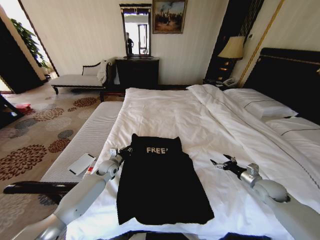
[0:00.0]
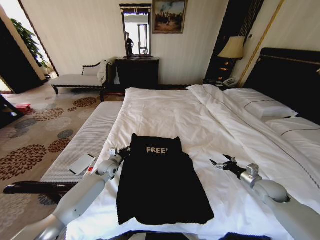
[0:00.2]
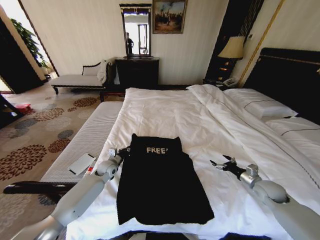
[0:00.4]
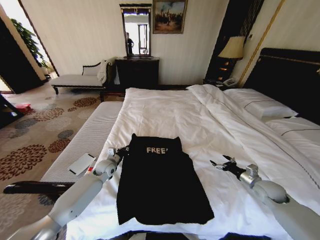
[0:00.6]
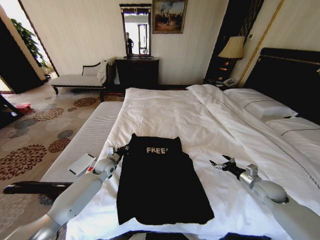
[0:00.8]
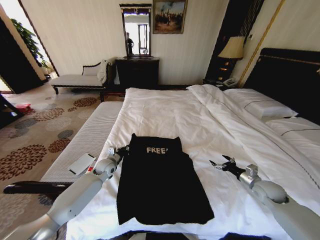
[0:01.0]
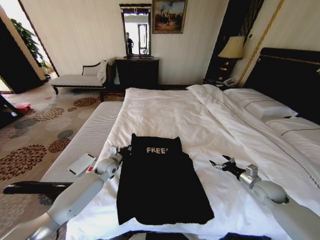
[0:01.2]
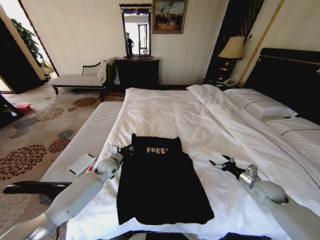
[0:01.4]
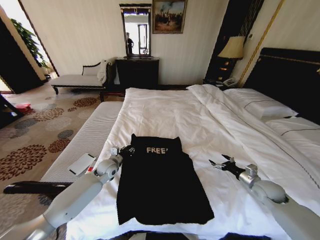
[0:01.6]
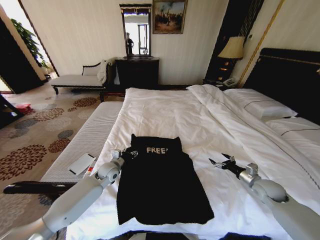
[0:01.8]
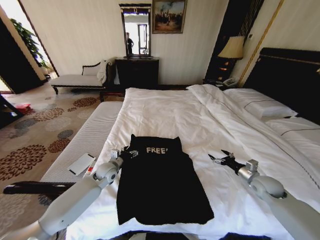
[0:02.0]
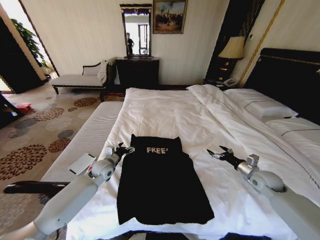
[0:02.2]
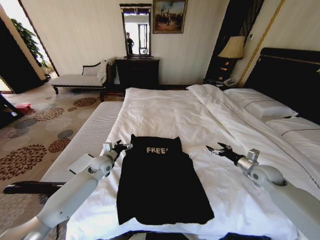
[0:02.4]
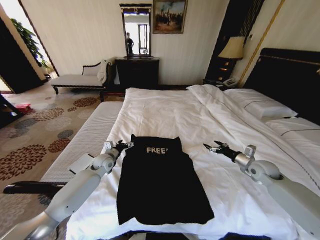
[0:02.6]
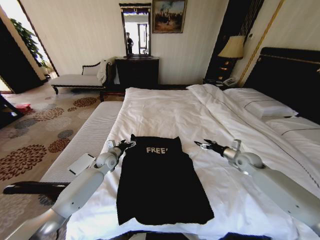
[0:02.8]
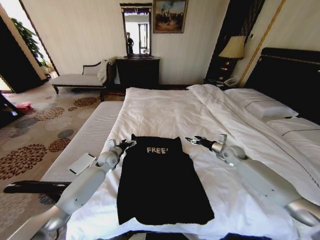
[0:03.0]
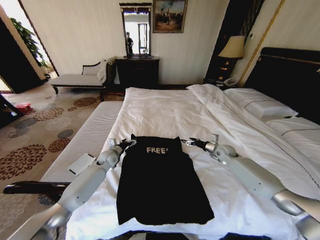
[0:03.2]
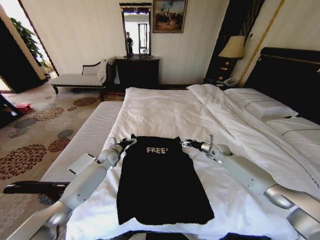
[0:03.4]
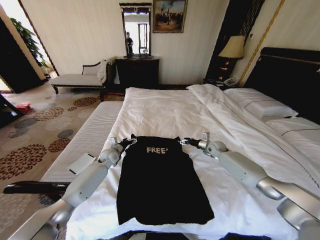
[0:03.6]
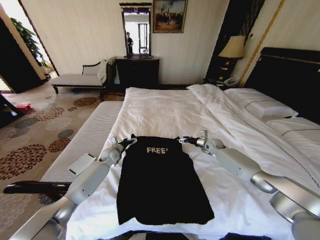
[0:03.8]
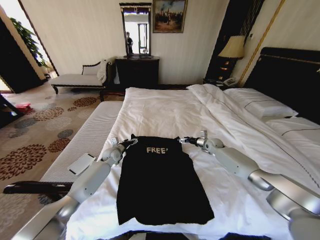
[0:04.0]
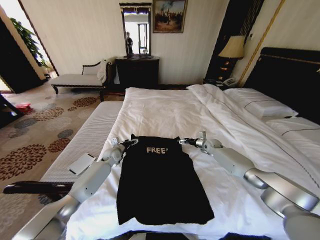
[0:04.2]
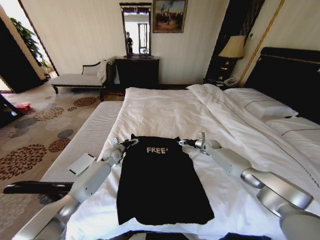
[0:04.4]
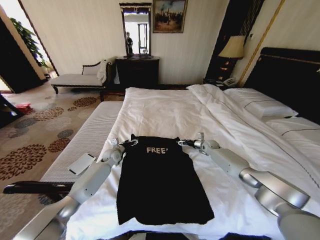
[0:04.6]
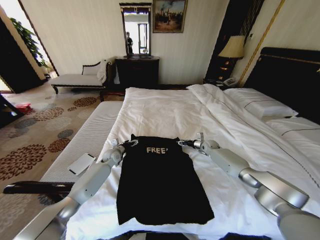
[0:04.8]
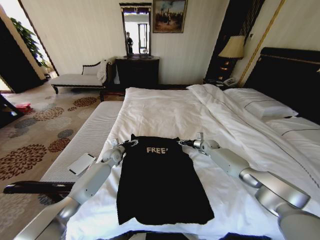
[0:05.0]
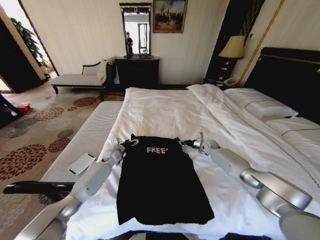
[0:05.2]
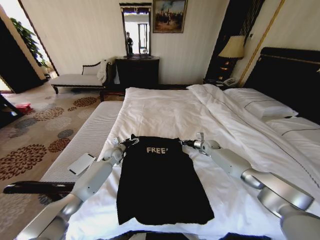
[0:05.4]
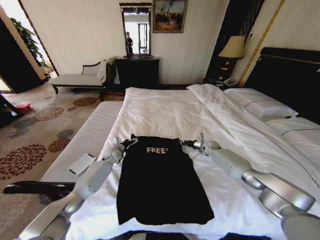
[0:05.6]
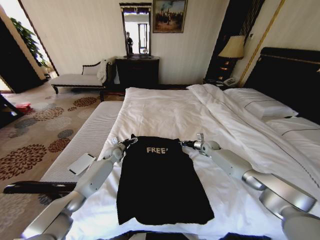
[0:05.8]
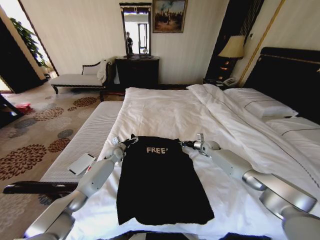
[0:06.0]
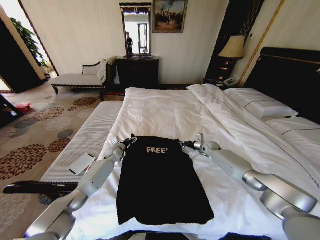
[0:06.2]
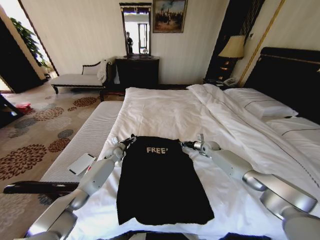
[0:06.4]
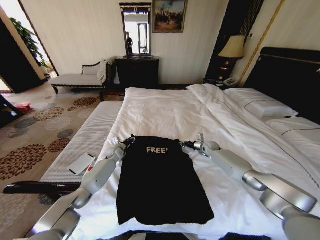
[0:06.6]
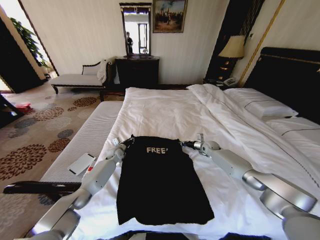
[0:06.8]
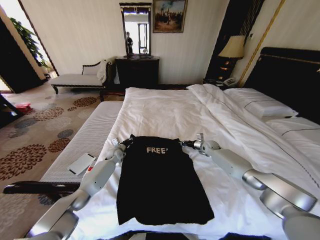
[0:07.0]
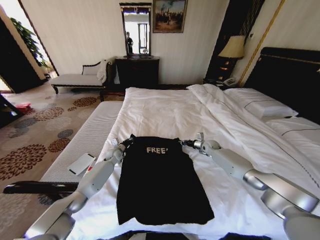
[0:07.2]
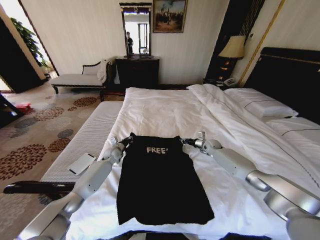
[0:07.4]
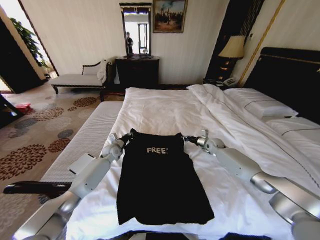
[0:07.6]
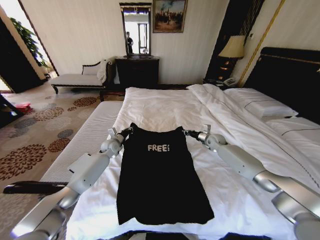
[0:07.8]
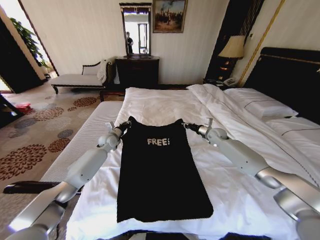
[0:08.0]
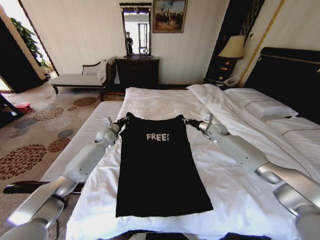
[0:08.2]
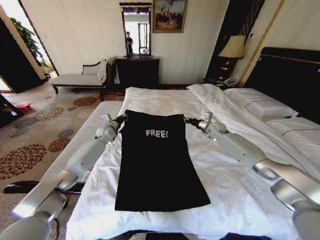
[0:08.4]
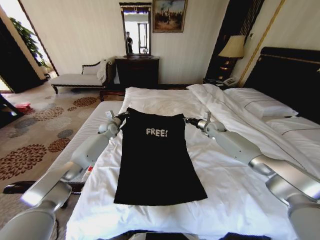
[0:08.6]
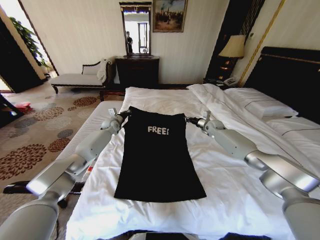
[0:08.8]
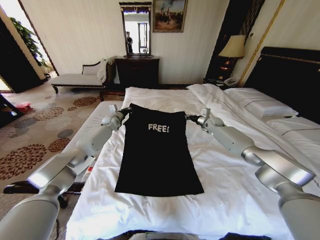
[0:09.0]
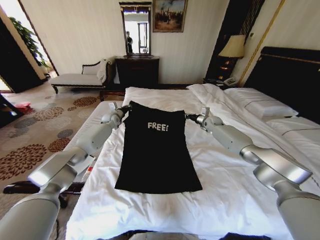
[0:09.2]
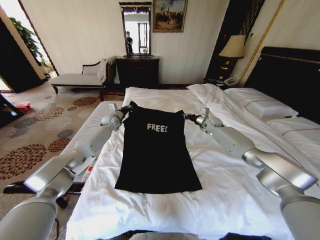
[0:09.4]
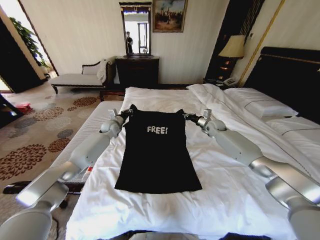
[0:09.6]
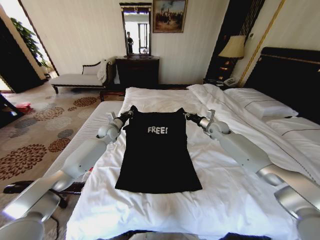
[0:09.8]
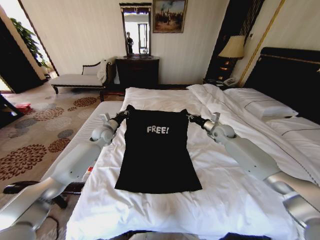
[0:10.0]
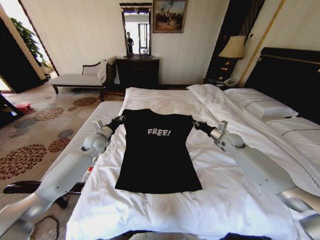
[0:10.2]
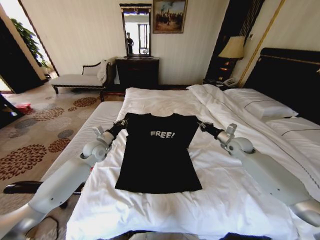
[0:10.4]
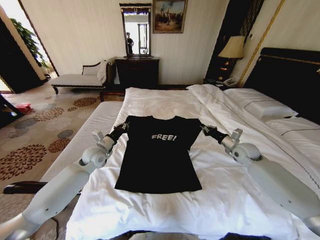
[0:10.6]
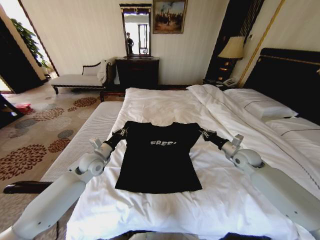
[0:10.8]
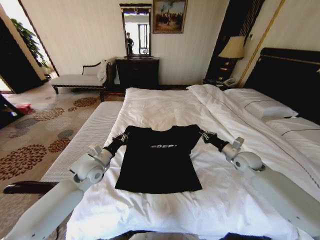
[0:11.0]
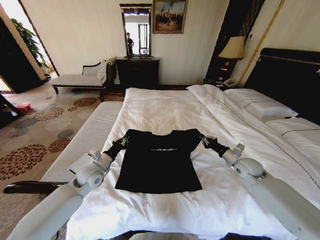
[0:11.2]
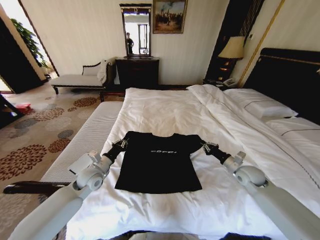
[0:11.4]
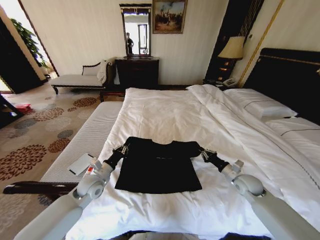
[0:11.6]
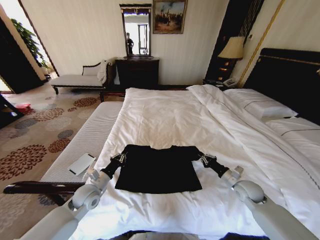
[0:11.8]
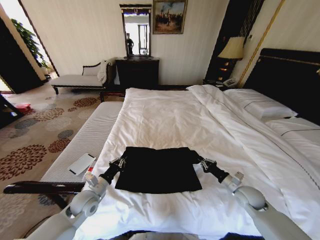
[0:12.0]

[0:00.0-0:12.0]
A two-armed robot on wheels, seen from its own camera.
Task of the whole recording: Fold the clothes on the bed.
0:00.0 to 0:01.6: There are only small adjustments of the grippers.
0:01.6 to 0:03.0: The left gripper moves forward, roughly 5 cm, and opens its fingers. The right gripper goes approximately 20 cm forward and to the left.
0:03.0 to 0:04.4: The right gripper moves forward and downward, approximately 10 cm.
0:04.4 to 0:06.0: The right gripper closes its fingers.
0:06.0 to 0:07.6: The left gripper closes its fingers.
0:07.6 to 0:09.0: The right gripper is displaced upward and forward by approximately 15 cm. The left gripper moves forward and upward, some 20 cm.
0:09.0 to 0:10.4: Both grippers travel together backward, about 20 cm.
0:10.4 to 0:12.0: Both grippers travel together backward and downward, approximately 20 cm.

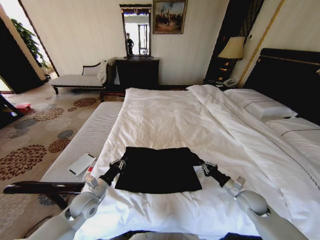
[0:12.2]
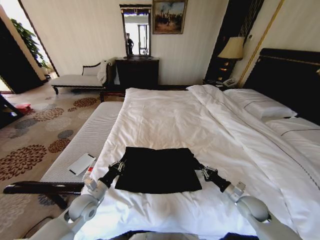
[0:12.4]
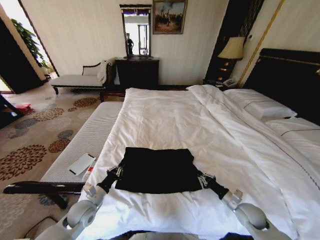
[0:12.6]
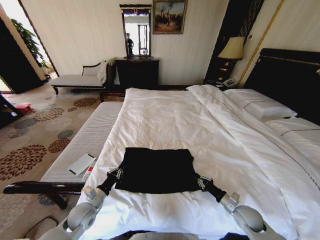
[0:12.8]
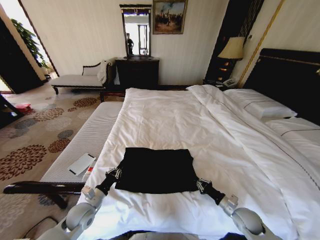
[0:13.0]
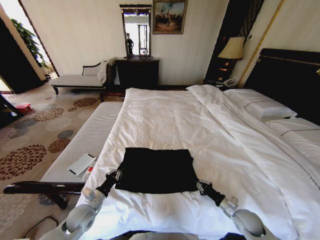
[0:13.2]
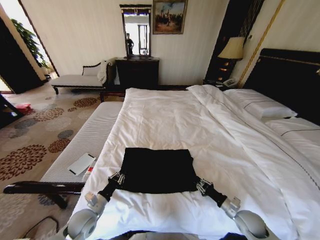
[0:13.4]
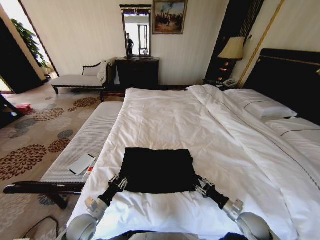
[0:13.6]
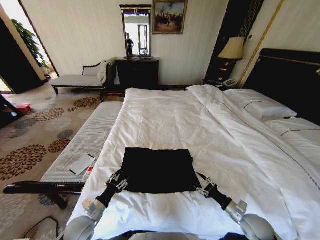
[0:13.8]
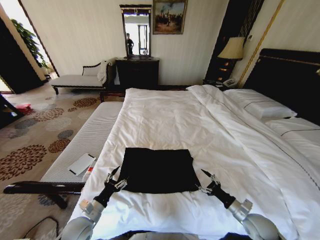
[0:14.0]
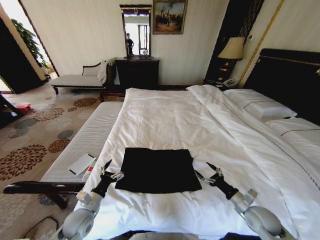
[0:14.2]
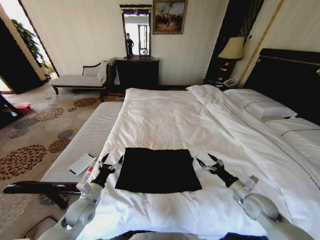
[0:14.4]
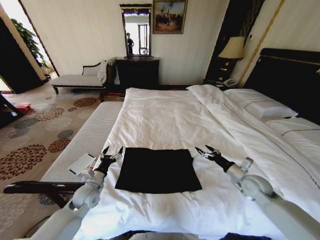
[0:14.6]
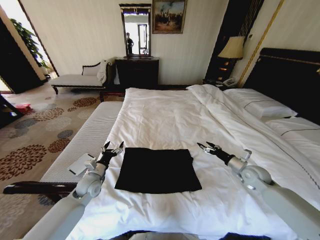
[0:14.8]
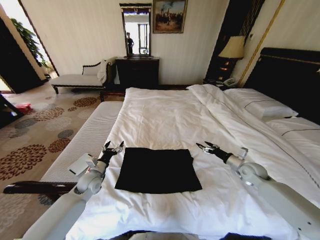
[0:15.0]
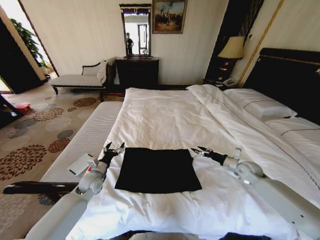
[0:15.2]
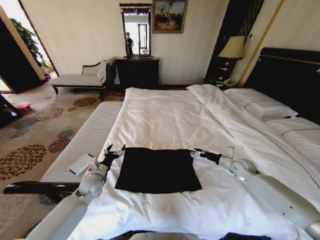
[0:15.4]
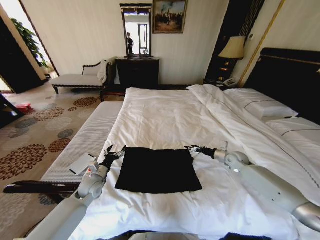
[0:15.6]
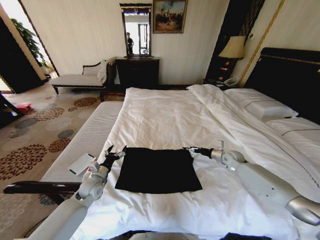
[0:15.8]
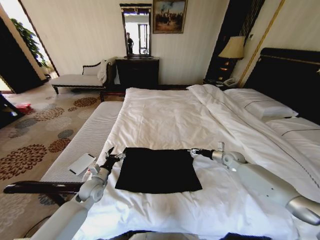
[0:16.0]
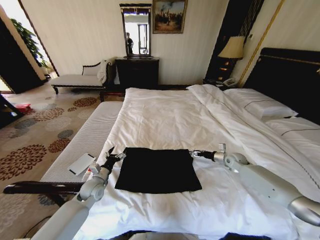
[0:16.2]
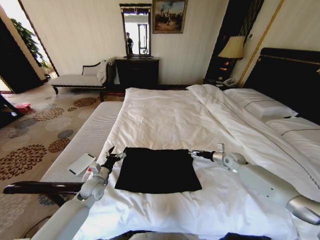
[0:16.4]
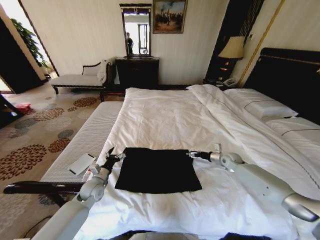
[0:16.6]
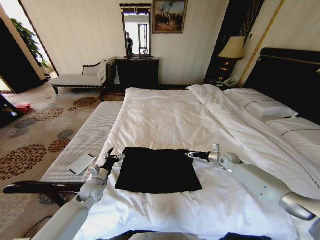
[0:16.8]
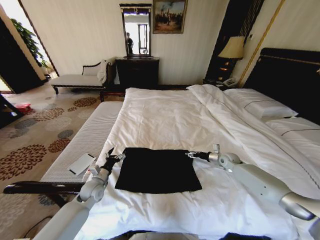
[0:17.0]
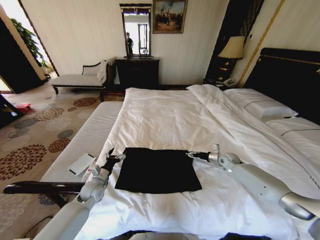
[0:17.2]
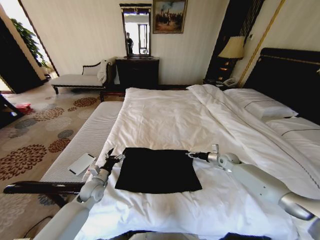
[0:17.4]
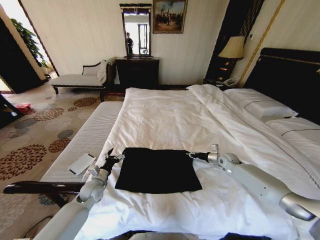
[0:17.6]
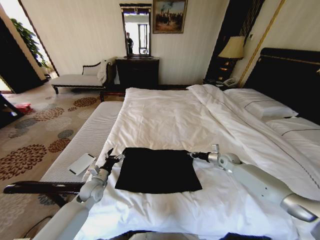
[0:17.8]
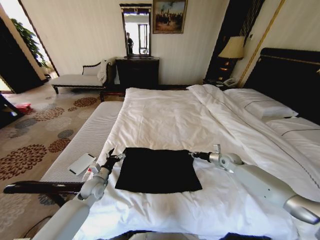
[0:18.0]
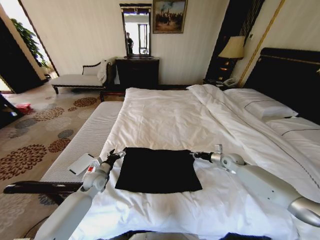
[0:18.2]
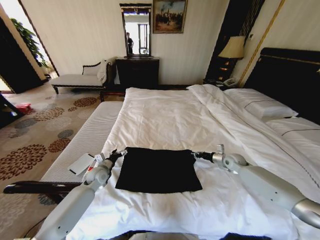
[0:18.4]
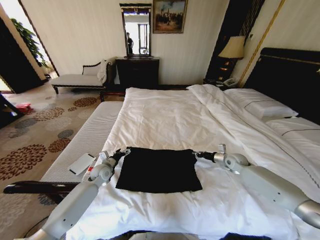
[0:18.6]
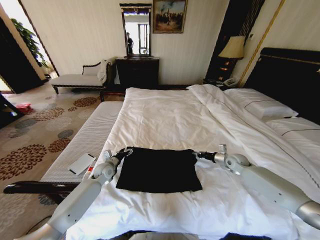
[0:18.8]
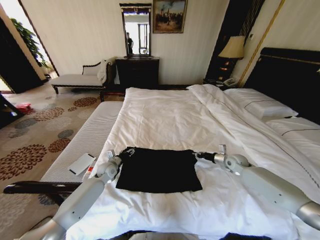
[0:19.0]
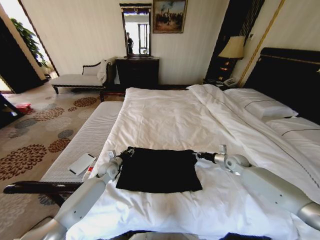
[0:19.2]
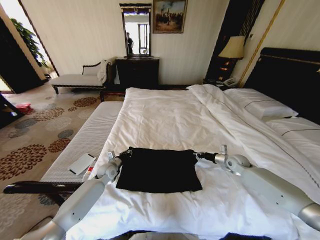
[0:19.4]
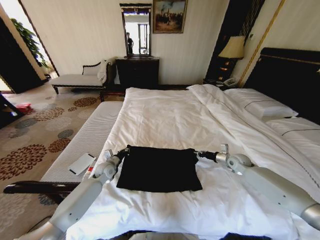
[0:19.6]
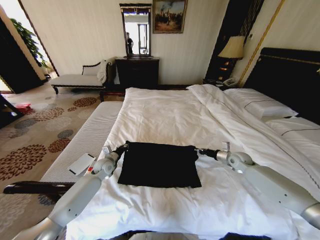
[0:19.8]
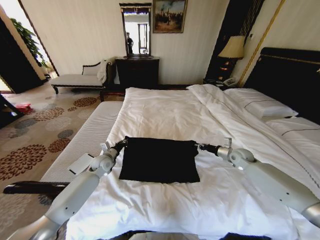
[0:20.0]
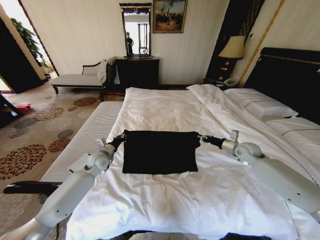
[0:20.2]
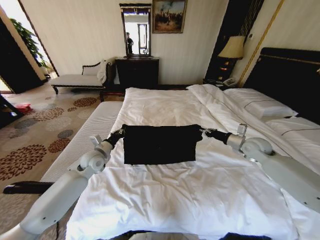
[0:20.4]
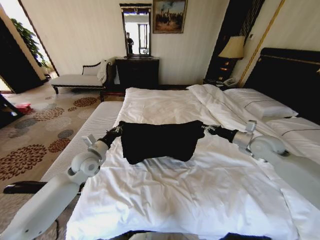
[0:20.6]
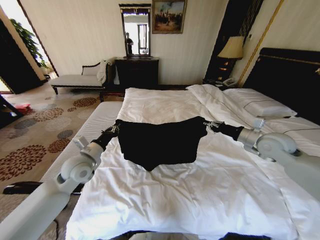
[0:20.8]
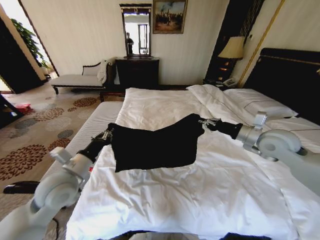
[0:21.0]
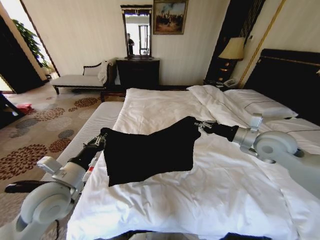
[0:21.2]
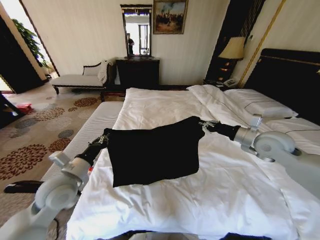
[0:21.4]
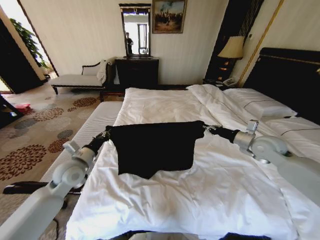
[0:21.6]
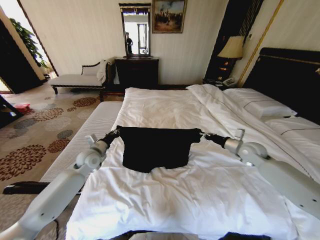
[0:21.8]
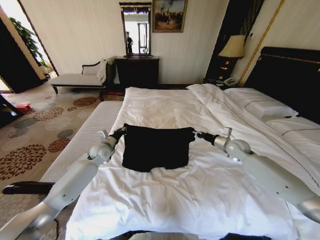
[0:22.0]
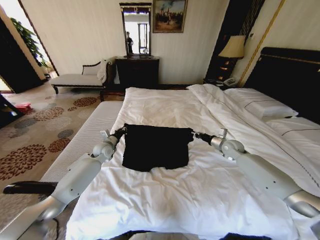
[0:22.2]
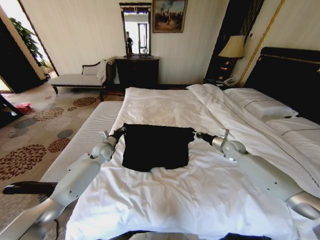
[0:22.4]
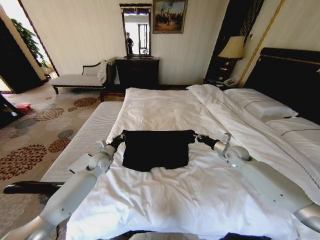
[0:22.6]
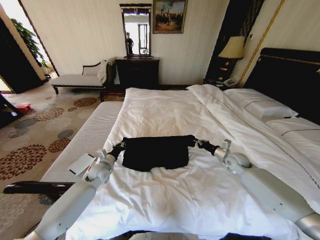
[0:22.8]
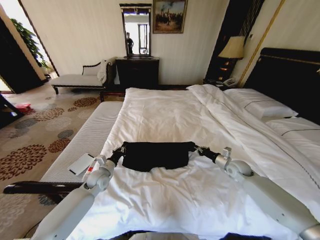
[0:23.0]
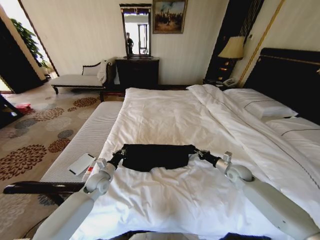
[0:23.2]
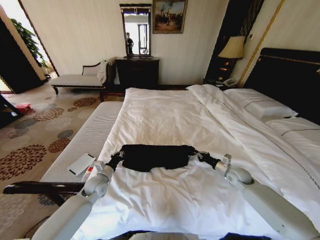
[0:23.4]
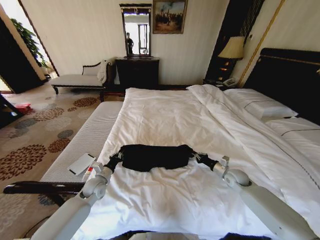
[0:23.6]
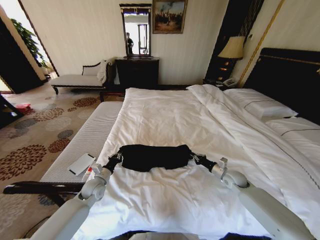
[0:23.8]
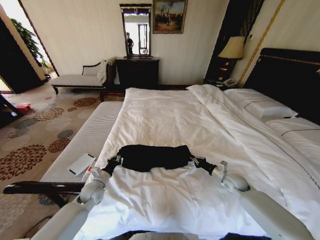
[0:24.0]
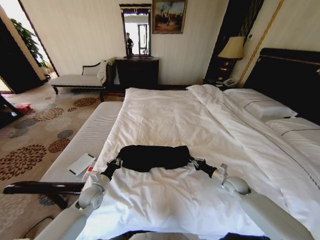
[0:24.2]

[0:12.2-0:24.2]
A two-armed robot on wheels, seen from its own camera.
Task of the whole recording: Fold the clothes on the bed.
0:12.2 to 0:13.8: Both grippers move backward, some 10 cm. The left gripper opens. The right gripper opens up.
0:13.8 to 0:15.2: The right gripper shifts about 20 cm forward and upward, and opens. Meanwhile the left gripper shifts some 15 cm forward, and opens up.
0:15.2 to 0:16.6: The right gripper goes about 10 cm forward.
0:16.6 to 0:18.2: The right gripper closes its fingers.
0:18.2 to 0:19.8: The left gripper travels forward by roughly 5 cm, and closes its fingers.
0:19.8 to 0:21.2: The left gripper goes approximately 30 cm backward and upward. Meanwhile the right gripper is displaced upward by some 20 cm.
0:21.2 to 0:22.6: The right gripper goes about 20 cm downward and forward, while the left gripper shifts approximately 25 cm forward and downward.
0:22.6 to 0:24.2: The two grippers go approximately 15 cm backward and downward.
